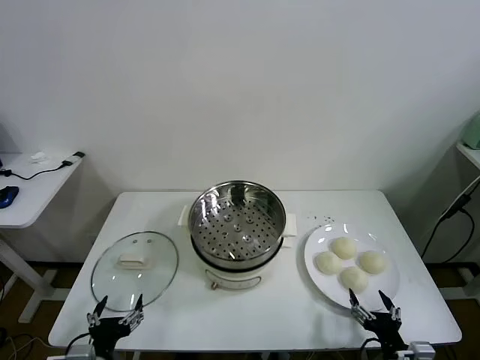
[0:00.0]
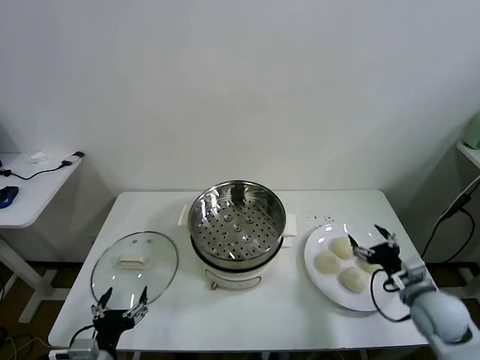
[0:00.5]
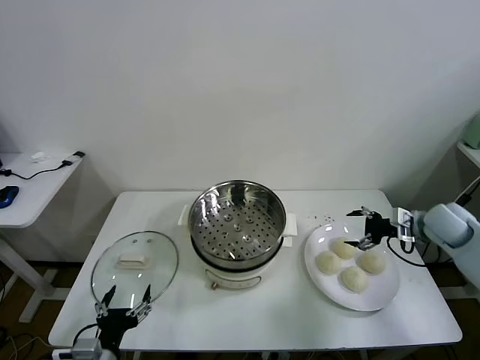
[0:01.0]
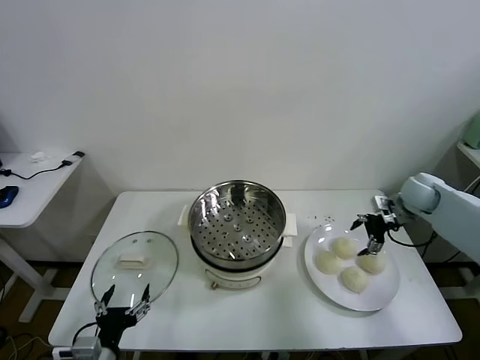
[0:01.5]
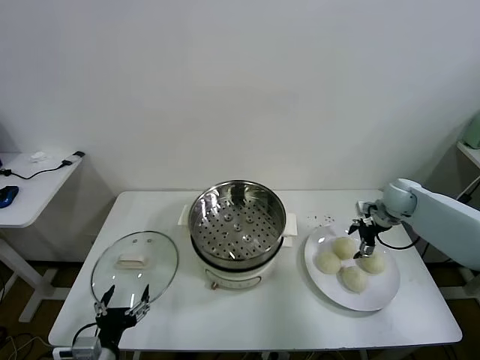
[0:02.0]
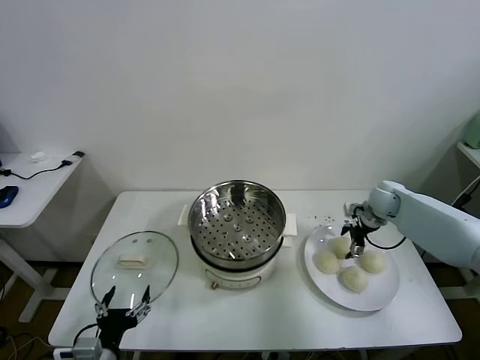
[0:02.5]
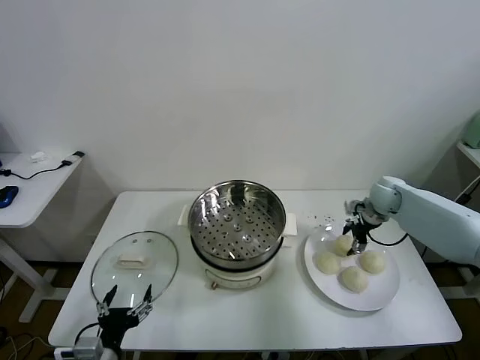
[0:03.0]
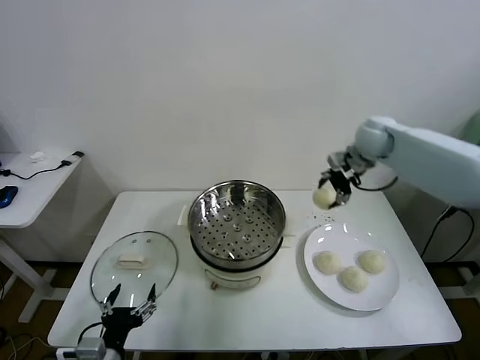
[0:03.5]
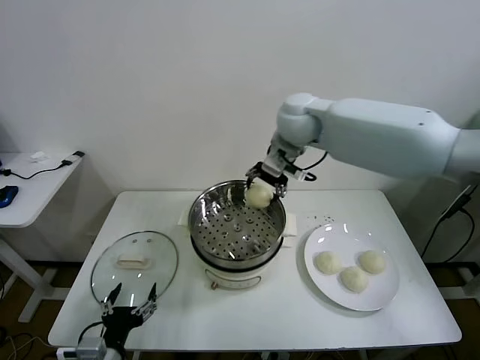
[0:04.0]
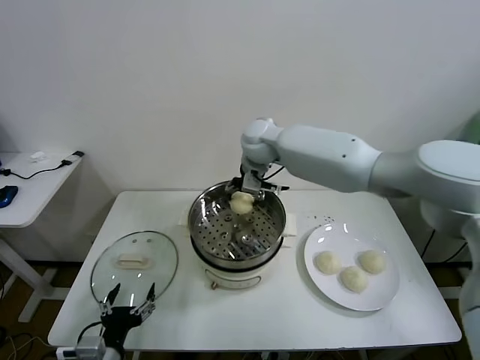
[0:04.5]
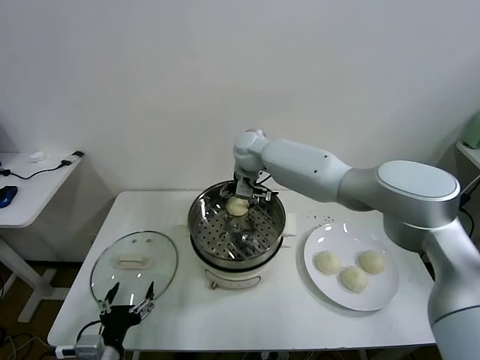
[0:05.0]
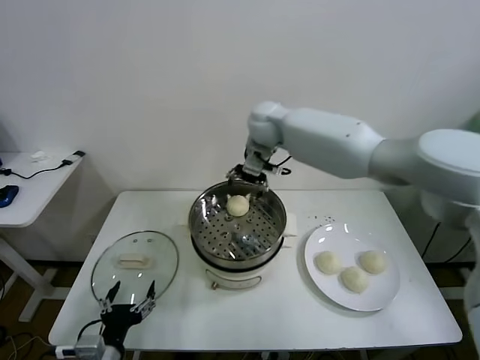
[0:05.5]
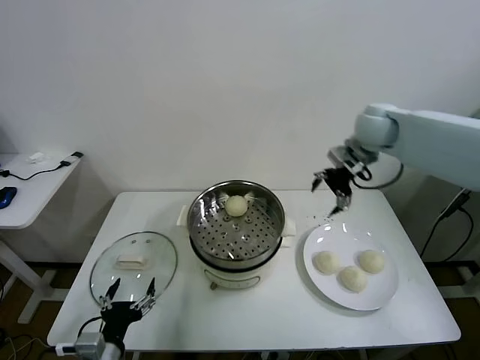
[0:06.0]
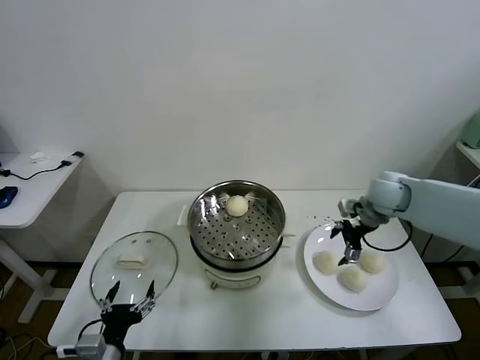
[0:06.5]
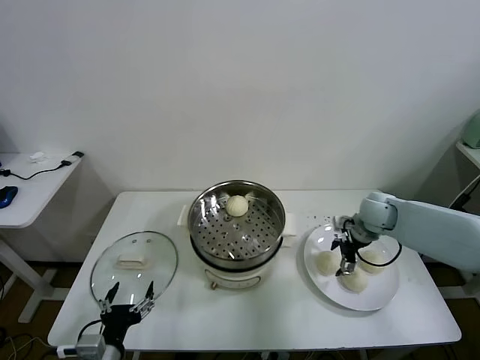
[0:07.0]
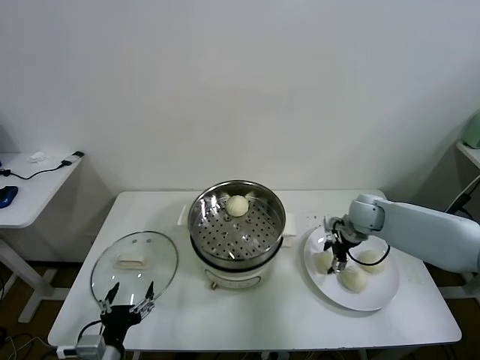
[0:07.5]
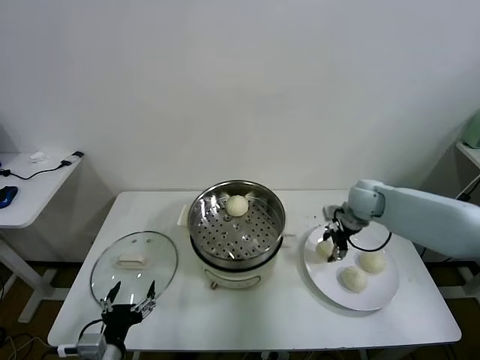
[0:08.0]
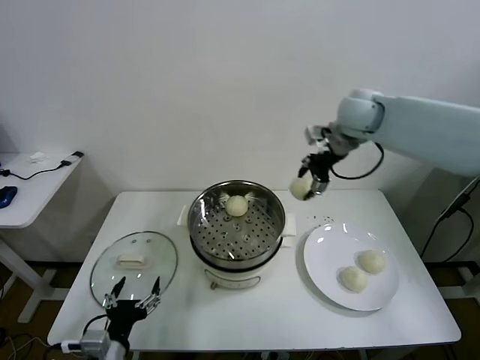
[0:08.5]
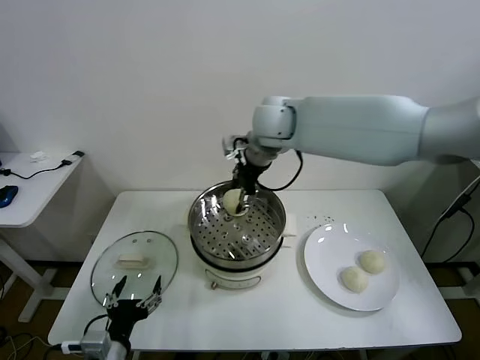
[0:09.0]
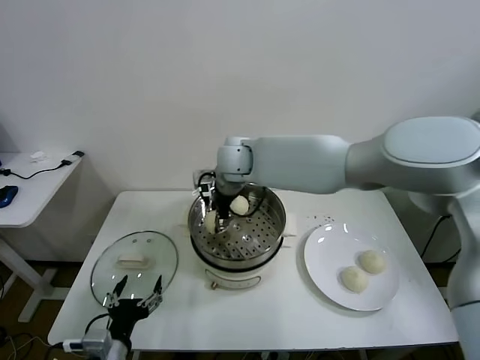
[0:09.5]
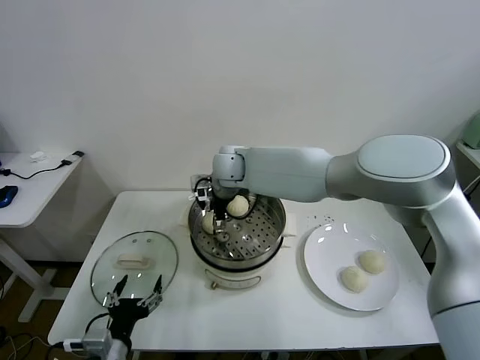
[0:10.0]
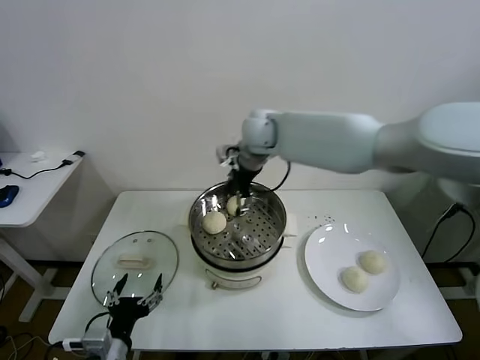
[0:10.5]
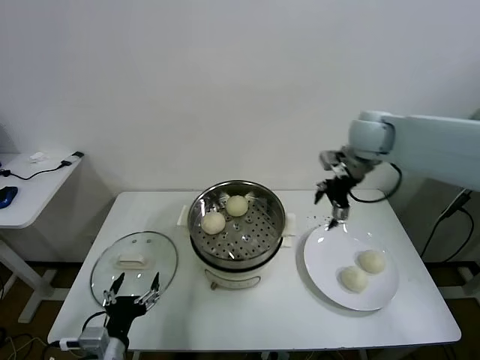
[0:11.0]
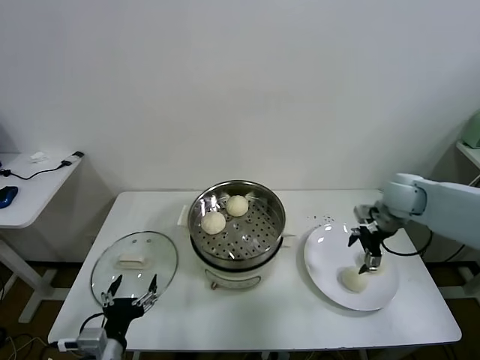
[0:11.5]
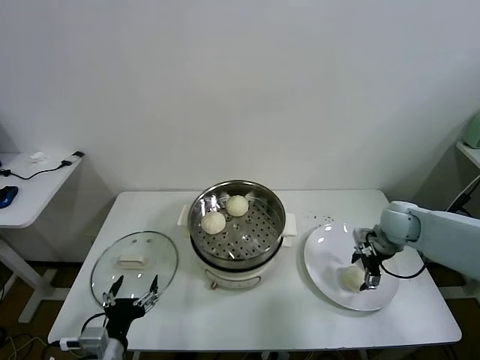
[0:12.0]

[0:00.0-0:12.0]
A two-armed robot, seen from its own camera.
Task of the whole recording: take steamed baozi put them in steamer.
Step, 0:00.0 to 0:02.5: Grasp the baozi in the plate with right gripper.
Step, 0:03.0 to 0:05.0: Place the baozi on the steamer with right gripper.
Step, 0:05.5 to 0:07.5: Grasp the baozi in the plate with right gripper.
Step, 0:08.0 to 0:10.0: Place the baozi on the steamer with right gripper.
0:02.0 to 0:04.0: The right gripper heads to the left and upward, covering roughly 40 cm, and closes.
0:04.0 to 0:06.0: The right gripper goes approximately 20 cm to the right, and opens its fingers.
0:06.0 to 0:08.0: The right gripper moves downward, some 15 cm, and closes up.
0:08.0 to 0:10.0: The right gripper travels to the left by some 35 cm, and opens its fingers.
0:10.0 to 0:12.0: The right gripper heads to the right, covering about 40 cm.

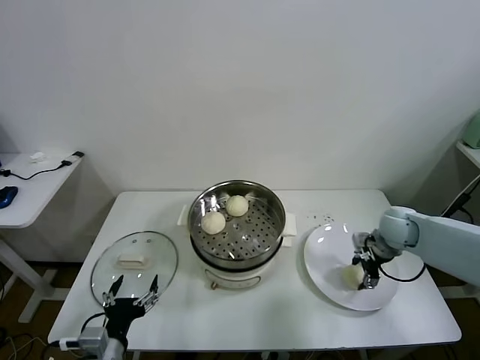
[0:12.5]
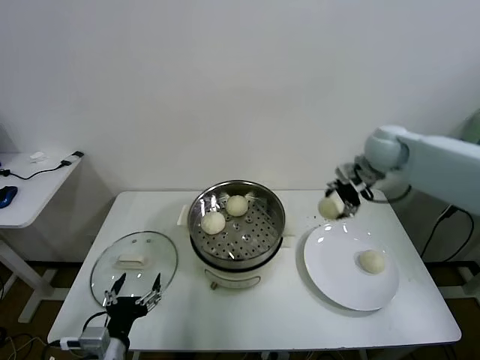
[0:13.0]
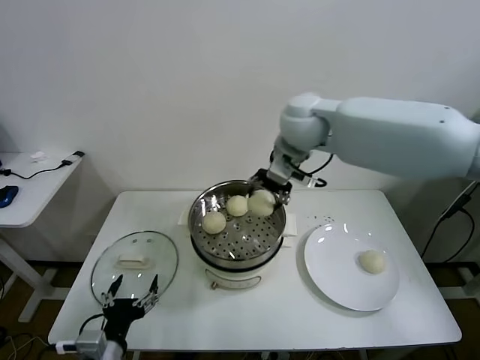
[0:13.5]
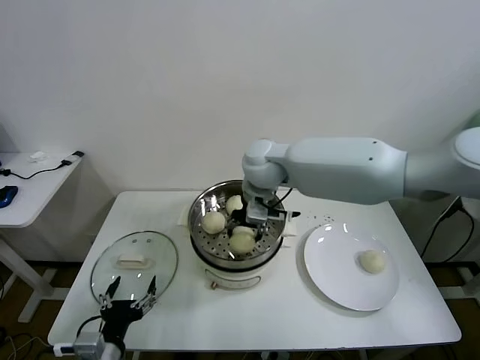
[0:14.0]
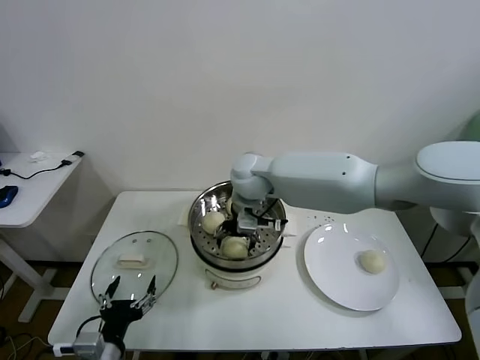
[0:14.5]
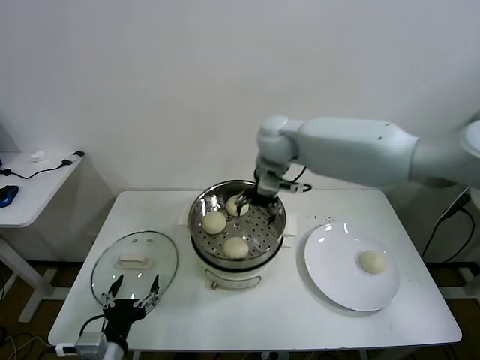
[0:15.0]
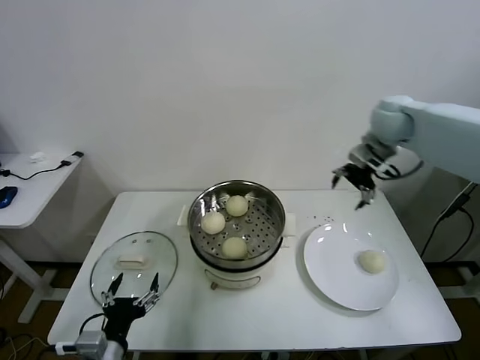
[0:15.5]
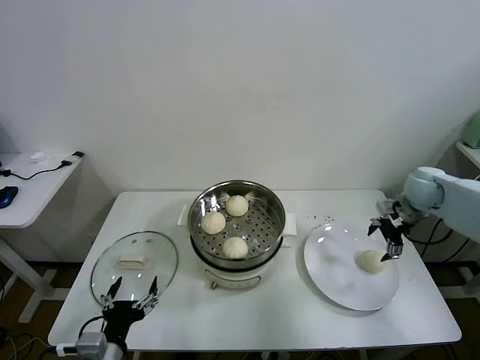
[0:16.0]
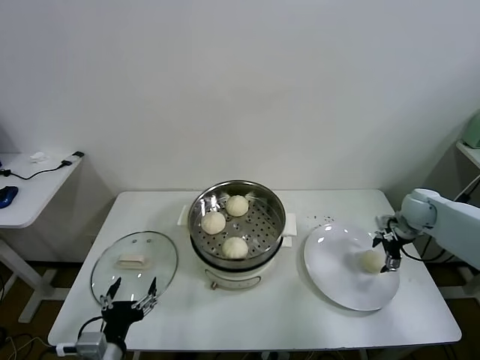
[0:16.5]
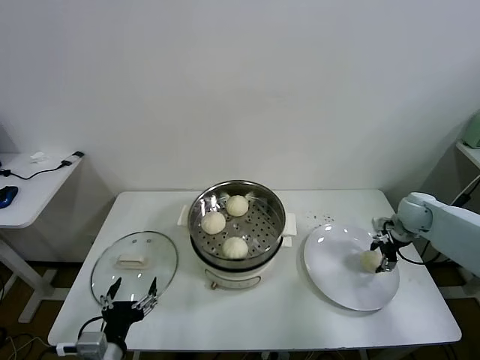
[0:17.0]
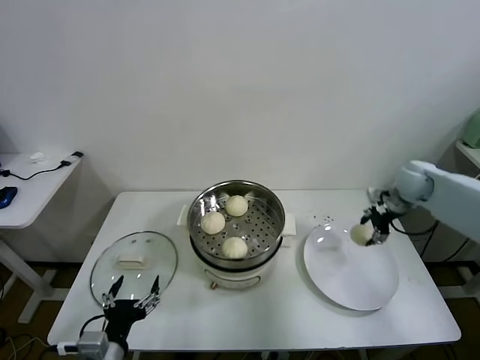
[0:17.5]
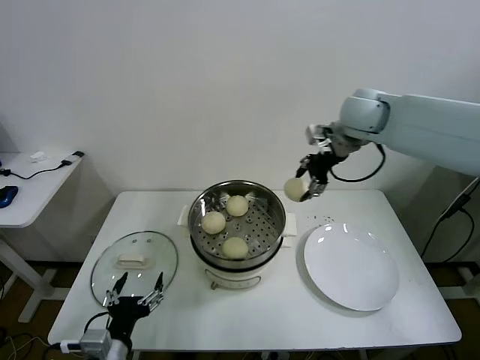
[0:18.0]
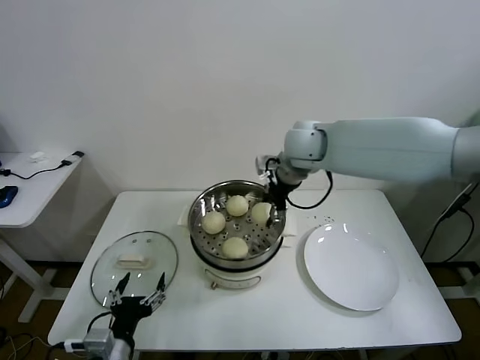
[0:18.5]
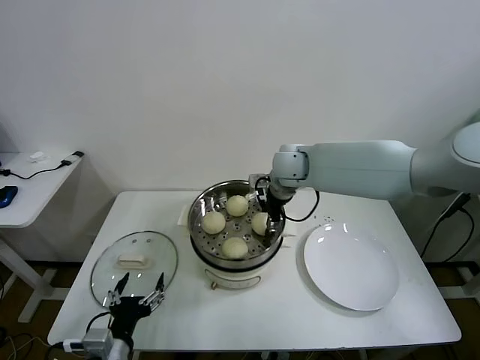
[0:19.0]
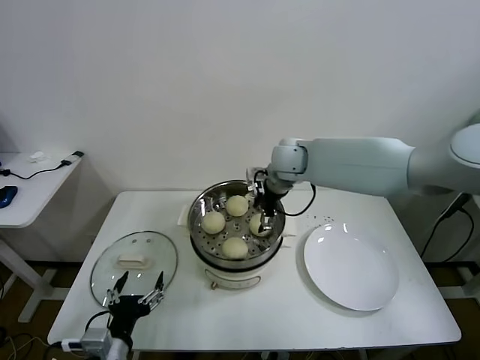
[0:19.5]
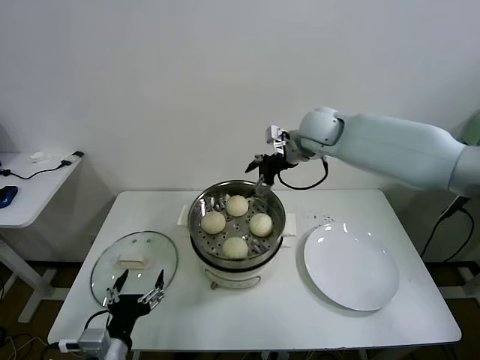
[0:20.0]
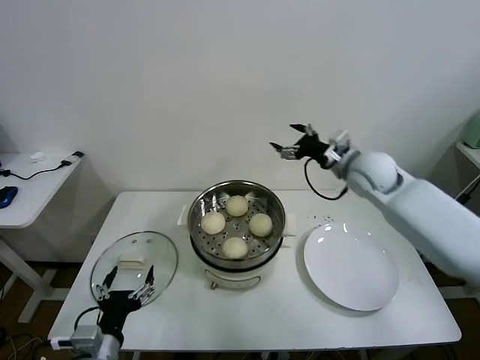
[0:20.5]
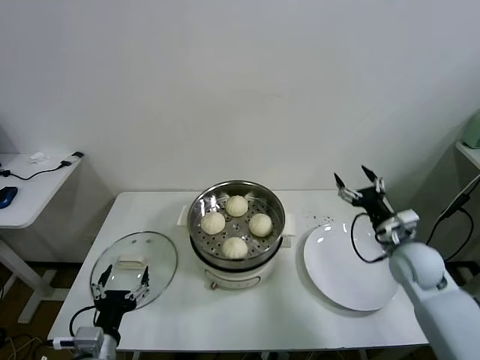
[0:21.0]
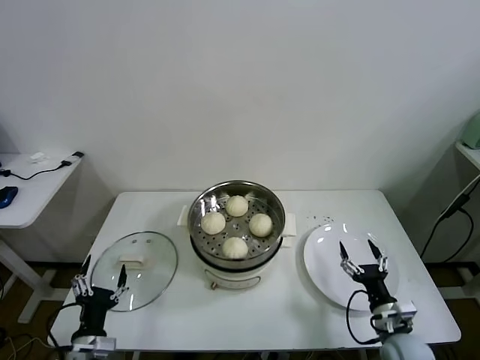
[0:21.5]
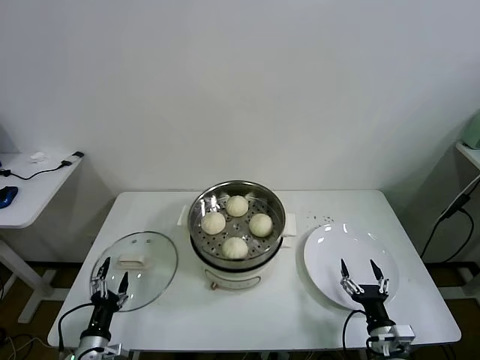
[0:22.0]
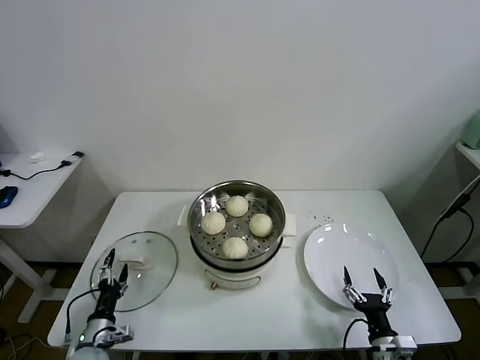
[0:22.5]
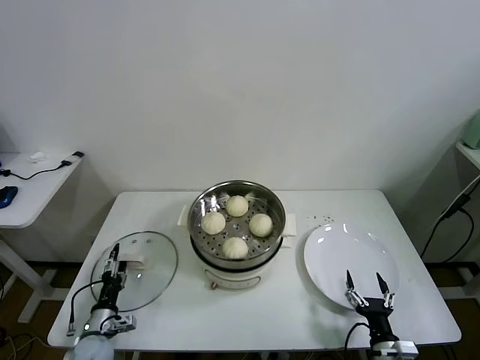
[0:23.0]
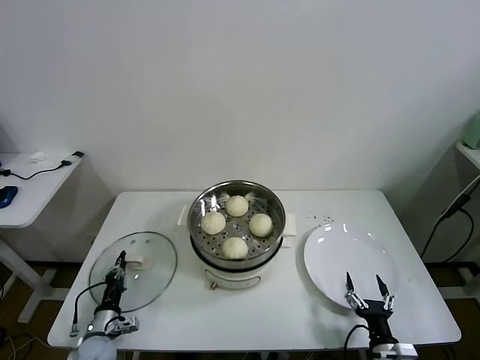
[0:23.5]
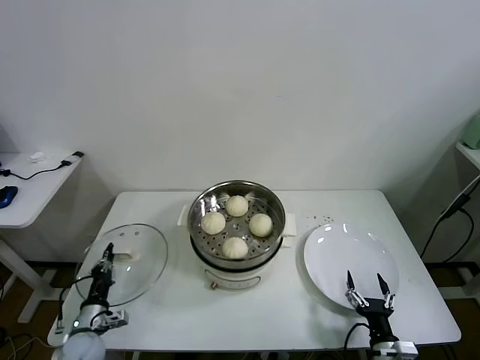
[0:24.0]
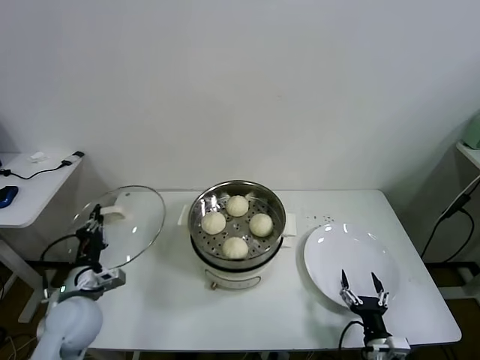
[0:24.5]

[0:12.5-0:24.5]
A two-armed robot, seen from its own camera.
Task of the whole recording: take steamed baozi put them in steamer.
Step, 0:12.5 to 0:14.5: Place the baozi on the steamer with right gripper.
Step, 0:15.0 to 0:16.5: Grasp the baozi in the plate with right gripper.
Step, 0:17.5 to 0:19.5: Place the baozi on the steamer with right gripper.
Step, 0:20.0 to 0:23.5: Grasp the pot lid with left gripper.
0:12.5 to 0:14.5: The right gripper heads to the left, covering about 35 cm, and opens up.
0:14.5 to 0:16.5: The right gripper moves to the right, approximately 40 cm.
0:16.5 to 0:18.5: The right gripper moves to the left and upward, roughly 35 cm, and closes up.
0:18.5 to 0:20.5: The right gripper is displaced to the right and downward by approximately 15 cm, and opens up.
0:20.5 to 0:22.5: The left gripper moves downward and to the left, some 20 cm. The right gripper shifts approximately 50 cm backward and downward.
0:22.5 to 0:24.5: The left gripper heads upward, covering roughly 15 cm, and closes up.

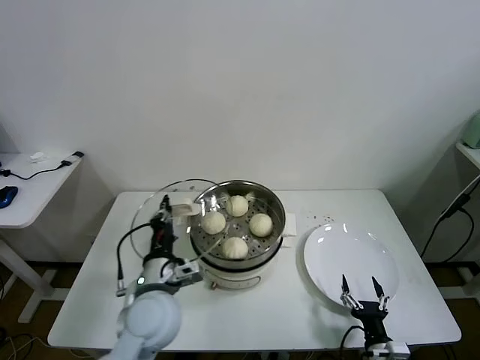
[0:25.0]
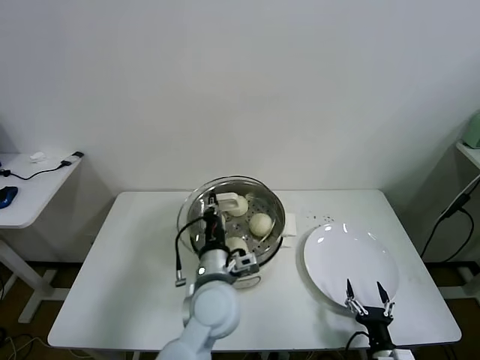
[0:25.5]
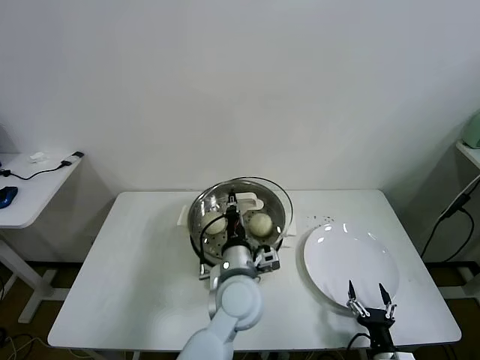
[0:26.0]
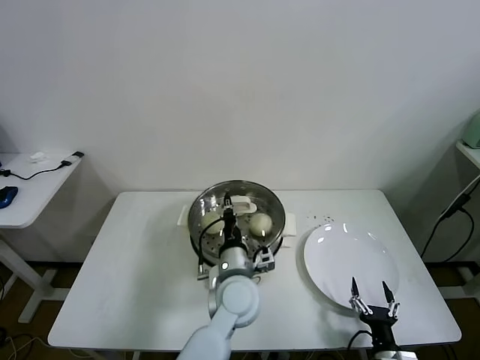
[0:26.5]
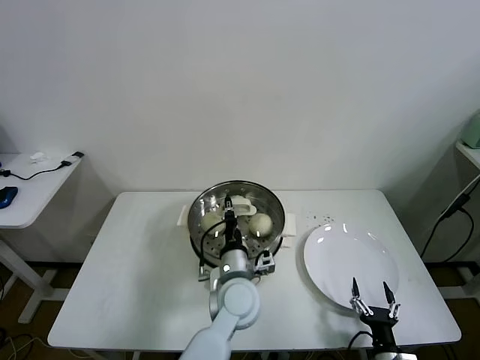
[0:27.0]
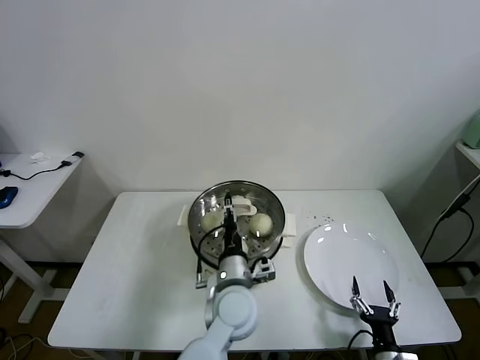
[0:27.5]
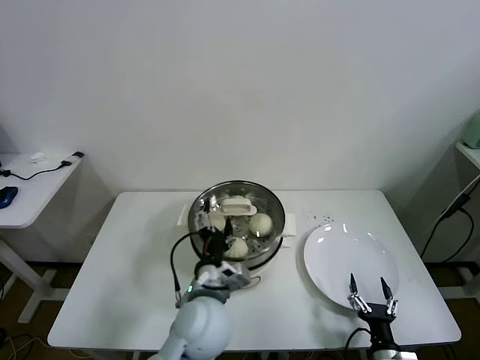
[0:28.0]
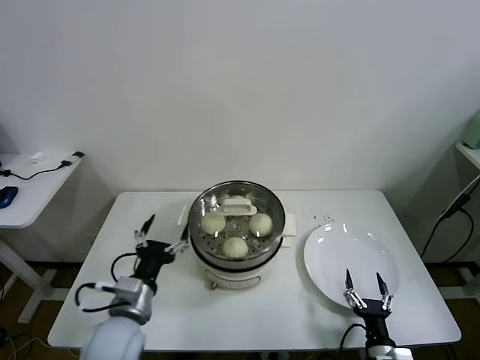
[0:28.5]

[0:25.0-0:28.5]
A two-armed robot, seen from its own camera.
Task of the whole recording: take steamed baozi put them in steamer.
Step, 0:25.0 to 0:27.5: Place the pot lid on the steamer with left gripper.
0:25.0 to 0:27.0: The left gripper travels to the right by roughly 20 cm.
0:27.0 to 0:28.5: The left gripper travels to the left and backward by about 20 cm, and opens up.
